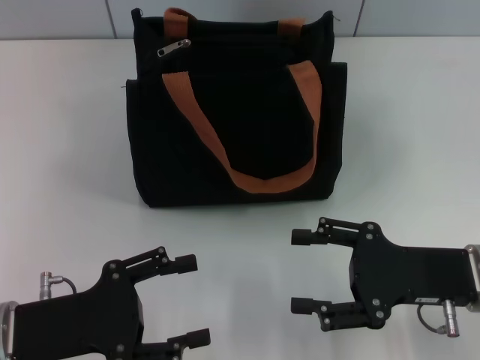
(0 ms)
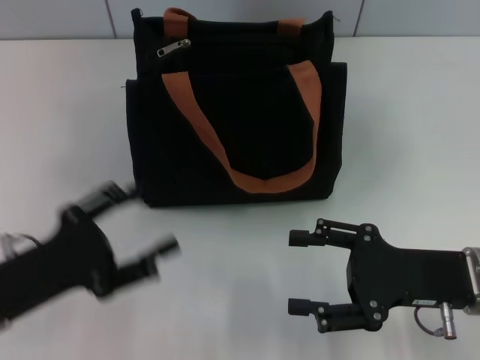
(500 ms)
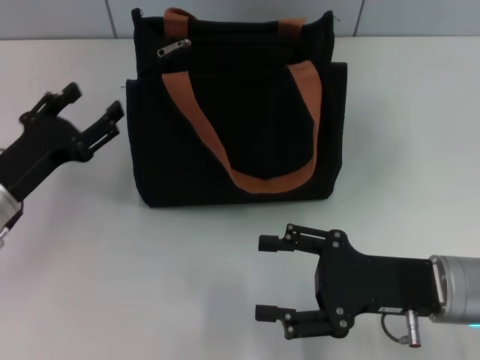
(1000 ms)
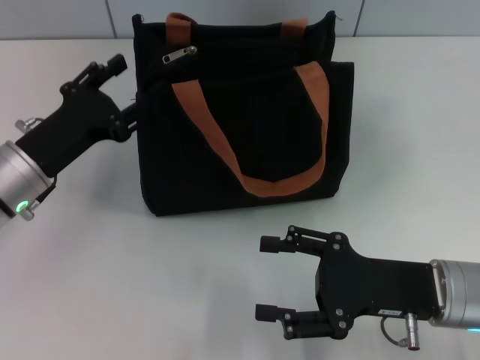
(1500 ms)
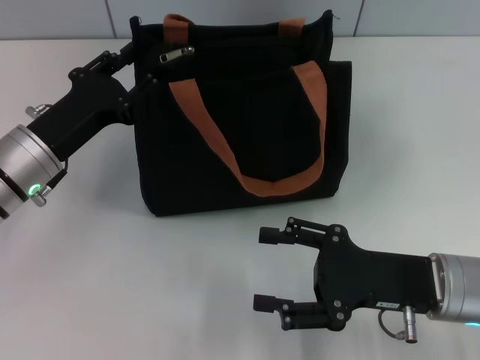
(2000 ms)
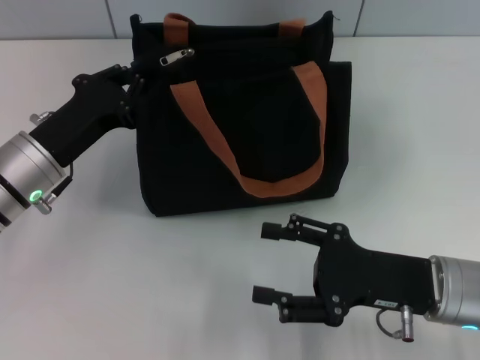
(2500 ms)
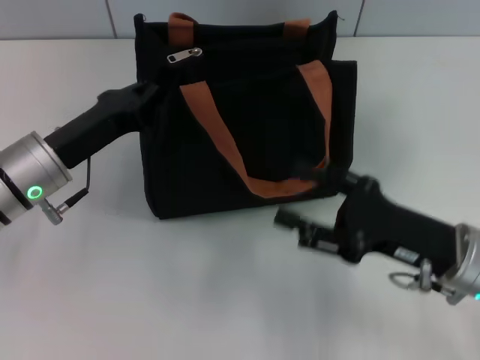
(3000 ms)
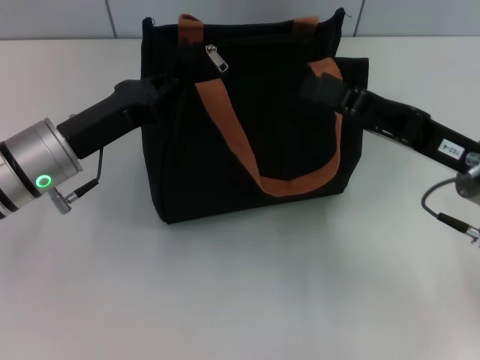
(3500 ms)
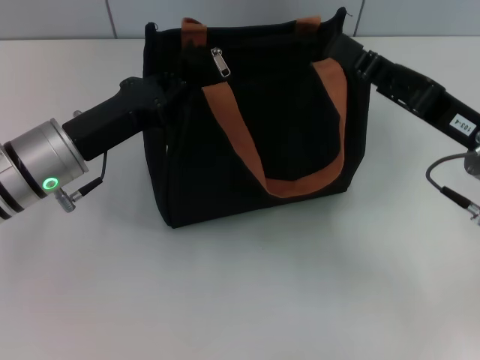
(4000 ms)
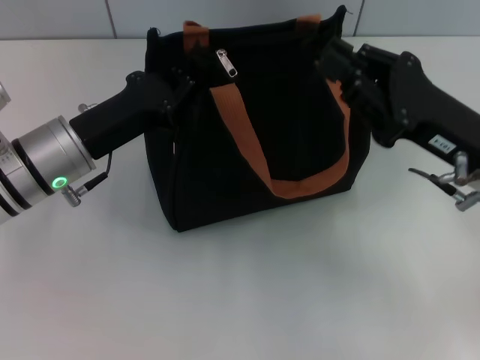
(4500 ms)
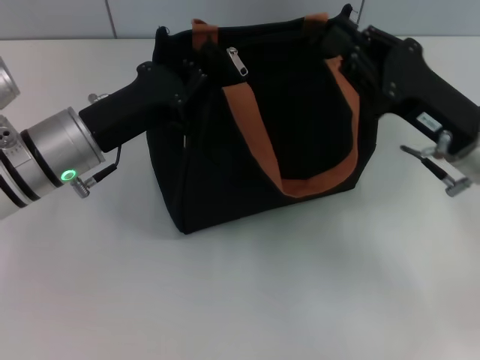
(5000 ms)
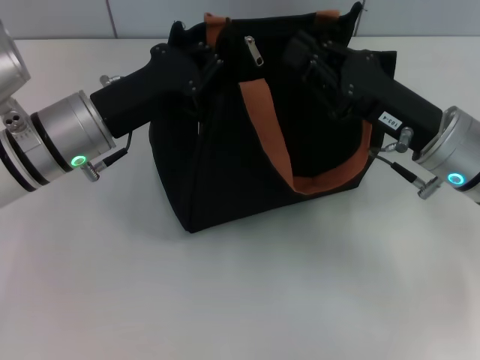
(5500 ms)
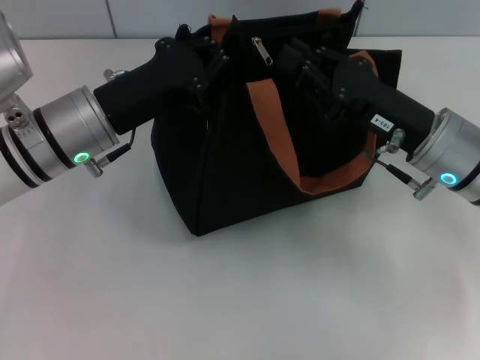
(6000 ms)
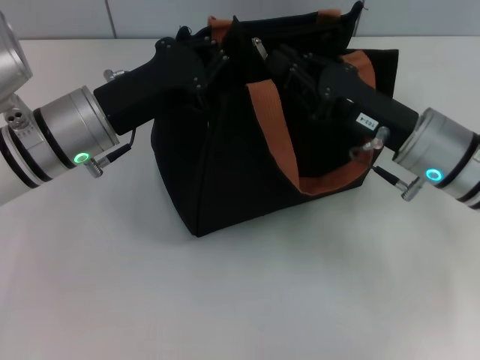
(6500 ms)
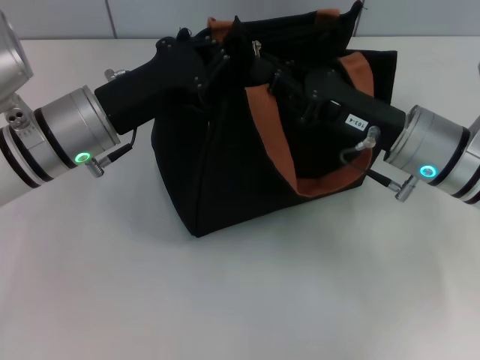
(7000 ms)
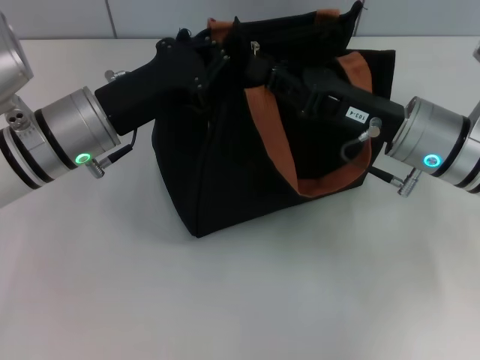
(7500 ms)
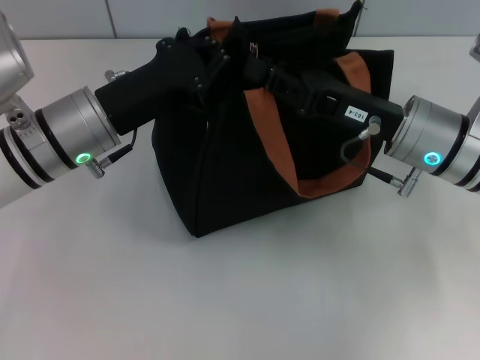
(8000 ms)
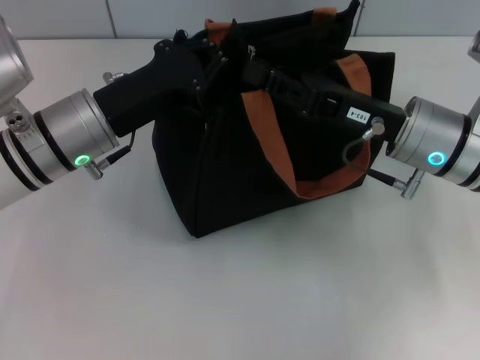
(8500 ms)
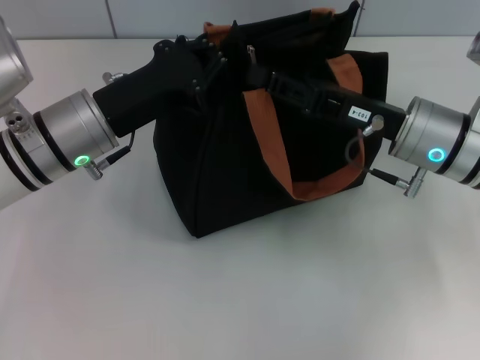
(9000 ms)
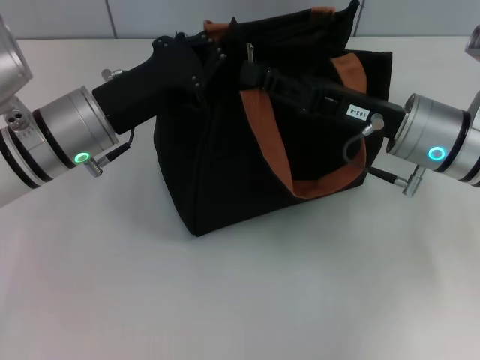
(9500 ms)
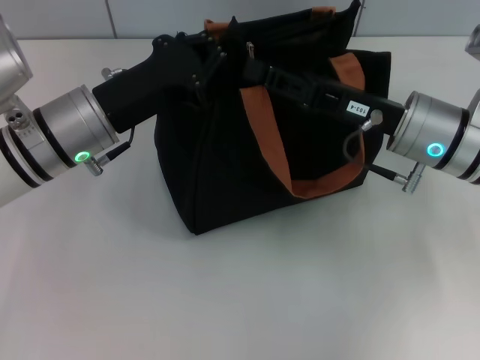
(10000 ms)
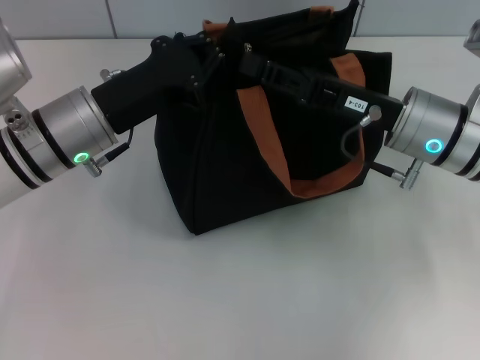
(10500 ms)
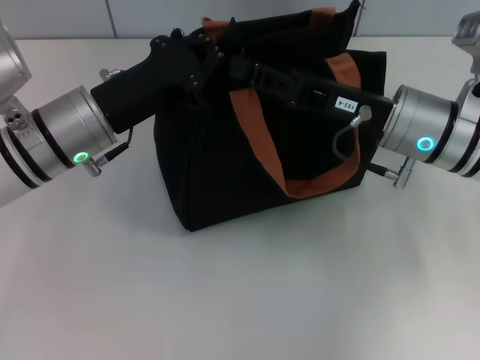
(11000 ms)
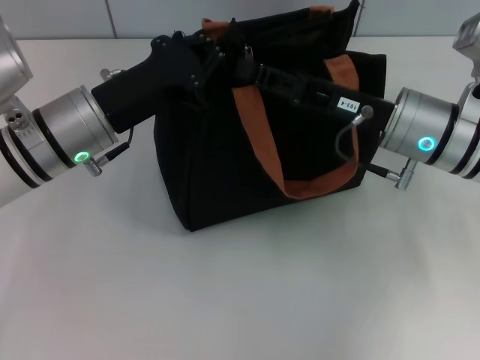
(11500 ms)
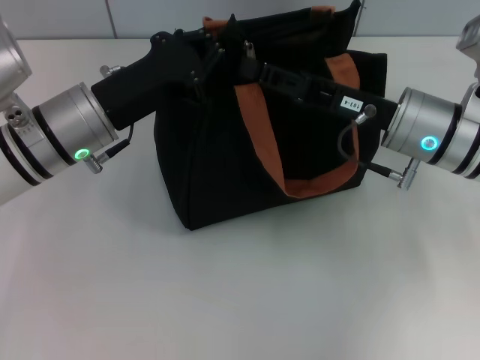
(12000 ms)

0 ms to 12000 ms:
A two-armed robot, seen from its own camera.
0 ms to 2000 ms: The left gripper is displaced forward by approximately 15 cm.
2000 ms to 4000 ms: The left gripper closes up, while the right gripper is displaced upward and forward by about 10 cm.
4000 ms to 6000 ms: The right gripper closes.
6000 ms to 8000 ms: The grippers move only a little.
8000 ms to 10000 ms: The grippers move only a little.
10000 ms to 12000 ms: The two grippers keep their place.

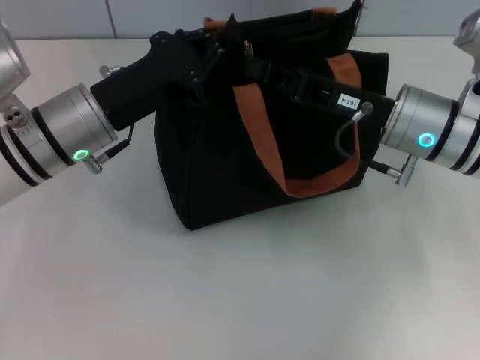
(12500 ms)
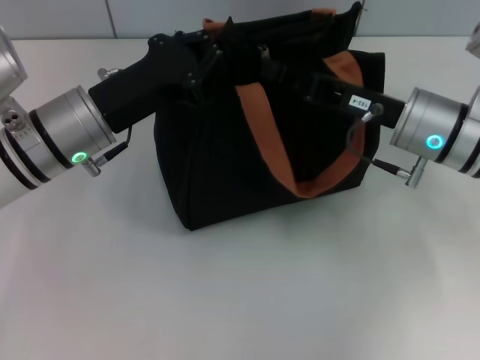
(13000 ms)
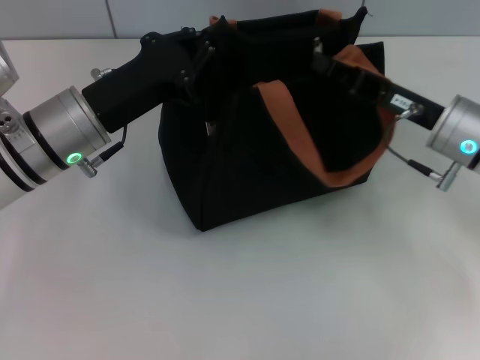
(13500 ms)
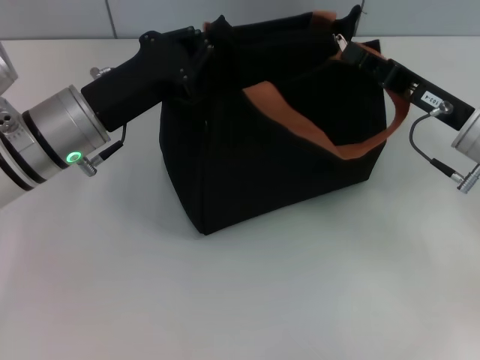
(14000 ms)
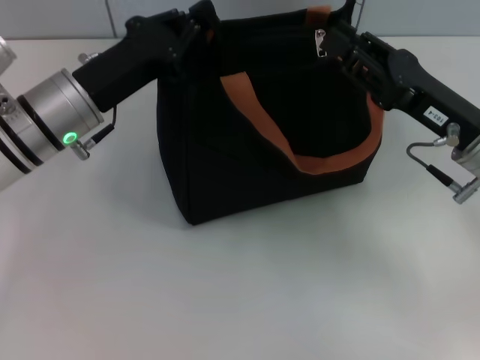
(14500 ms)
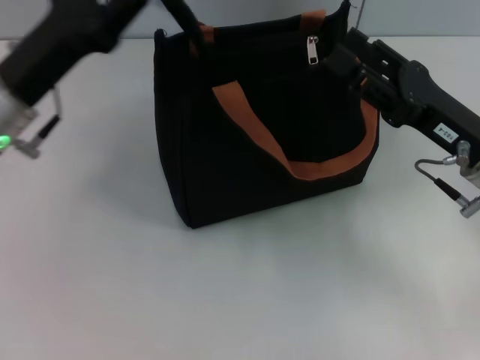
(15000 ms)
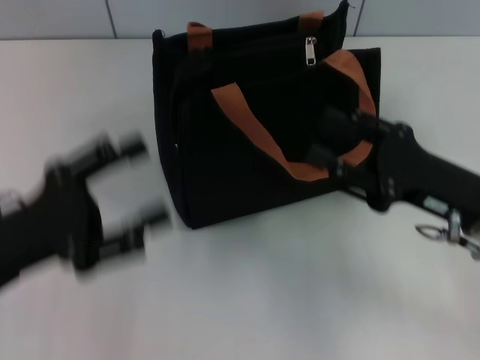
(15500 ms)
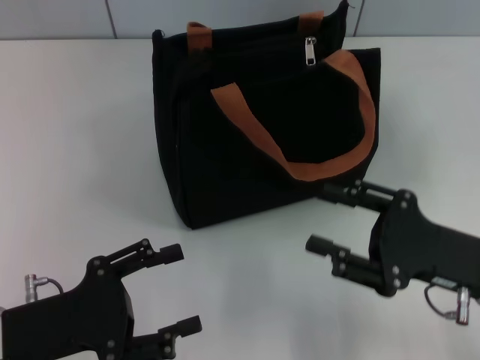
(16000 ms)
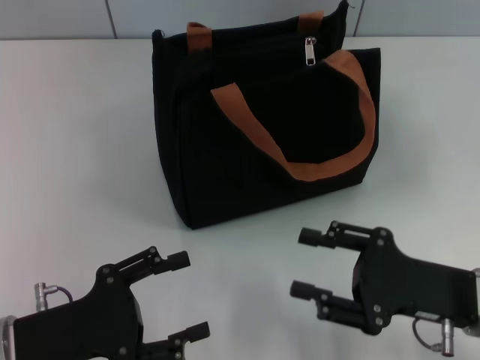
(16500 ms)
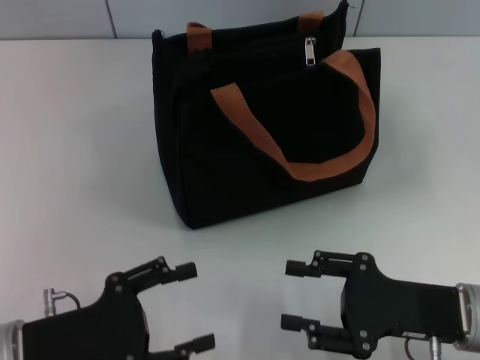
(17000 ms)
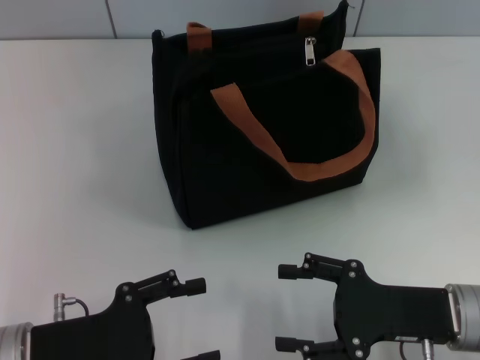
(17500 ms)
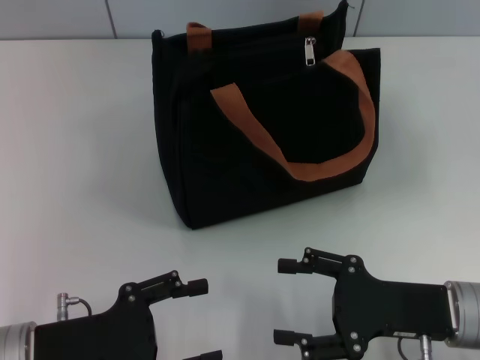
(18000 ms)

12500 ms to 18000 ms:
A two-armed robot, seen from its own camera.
Step, 14500 ms to 15000 ms: Grab the zipper with your left hand.
12500 ms to 14500 ms: The right gripper shifts about 5 cm to the right.
14500 ms to 16000 ms: The left gripper shifts approximately 20 cm backward, and opens; the right gripper heads backward, covering approximately 10 cm, and opens its fingers.

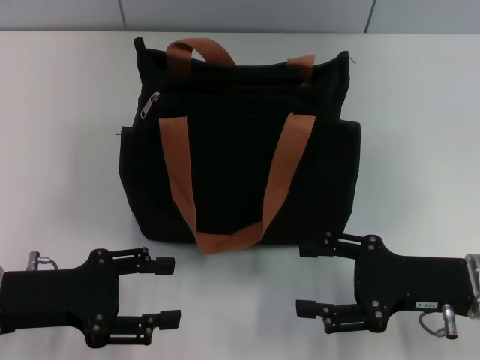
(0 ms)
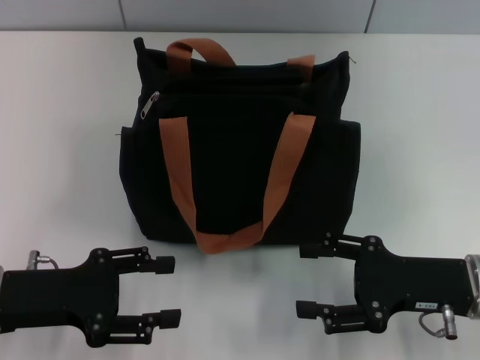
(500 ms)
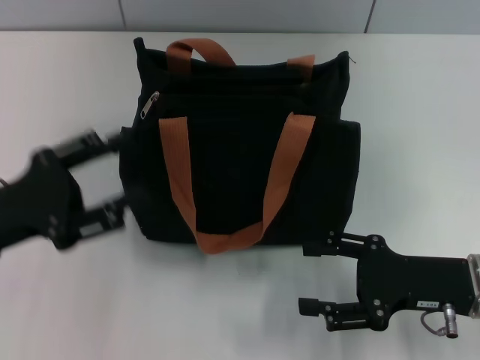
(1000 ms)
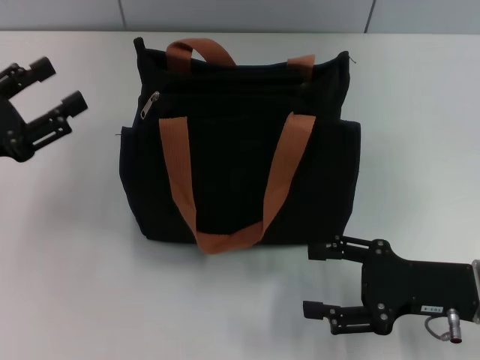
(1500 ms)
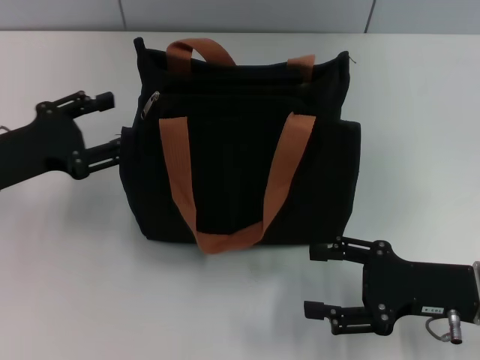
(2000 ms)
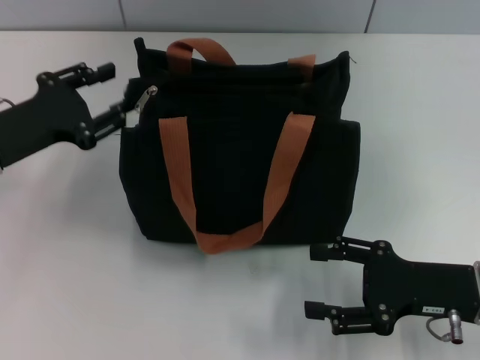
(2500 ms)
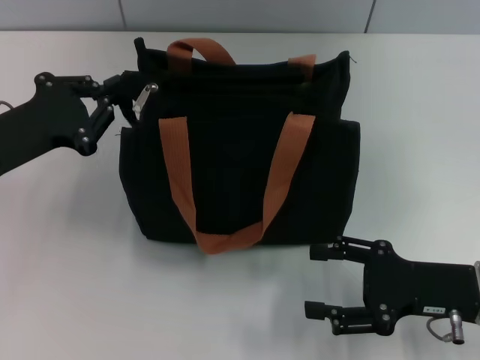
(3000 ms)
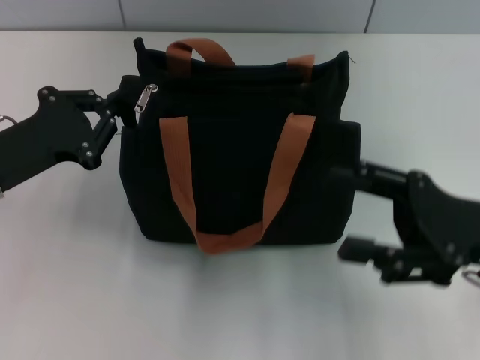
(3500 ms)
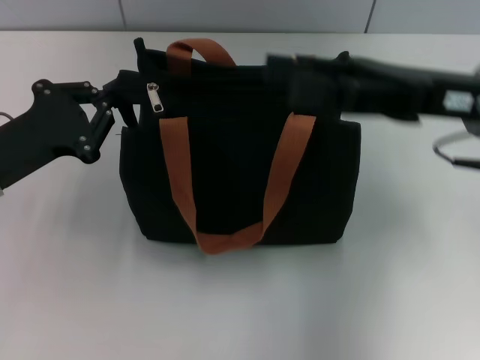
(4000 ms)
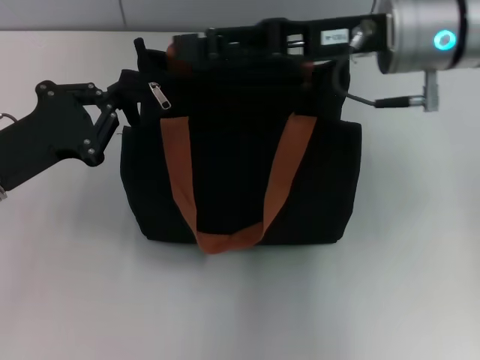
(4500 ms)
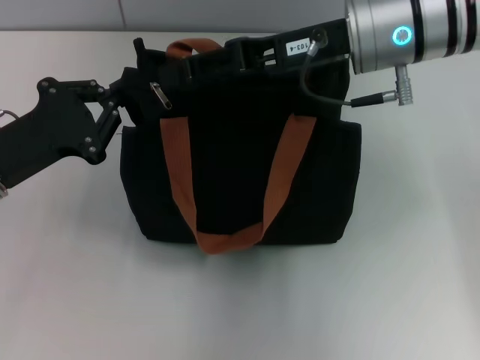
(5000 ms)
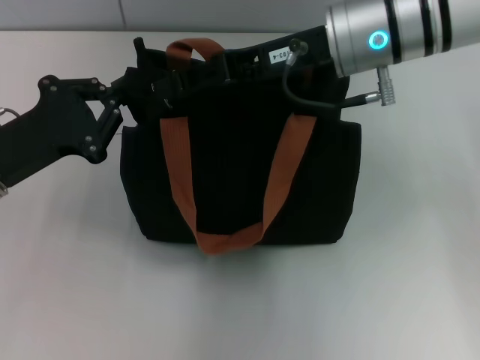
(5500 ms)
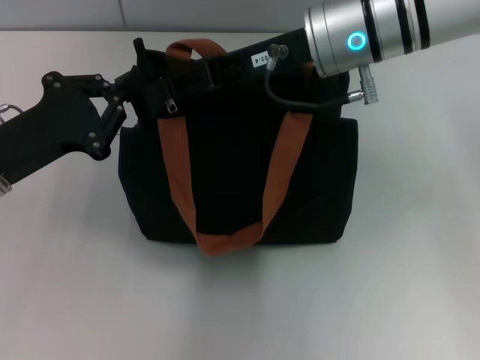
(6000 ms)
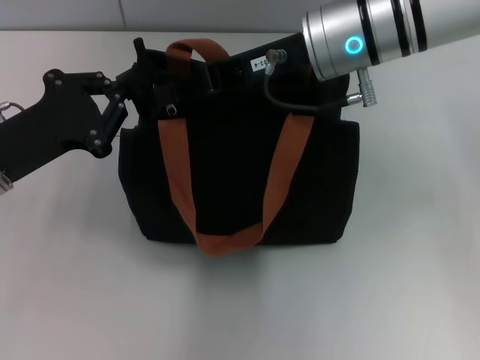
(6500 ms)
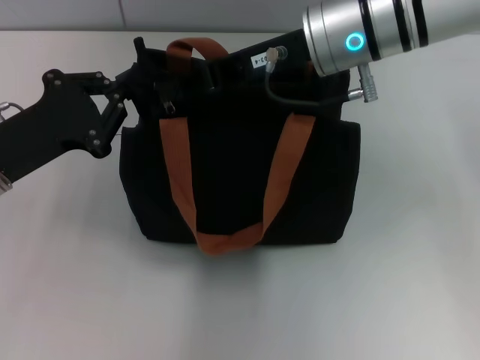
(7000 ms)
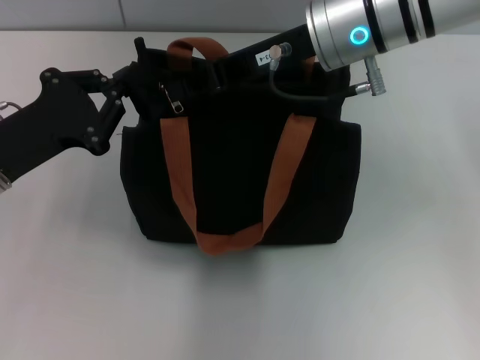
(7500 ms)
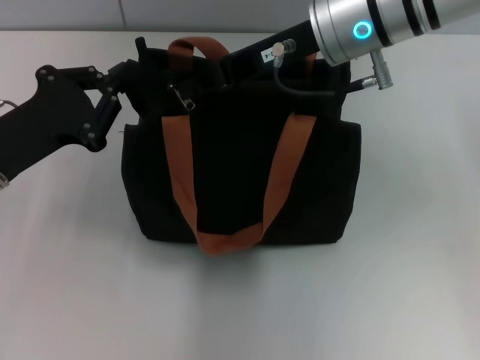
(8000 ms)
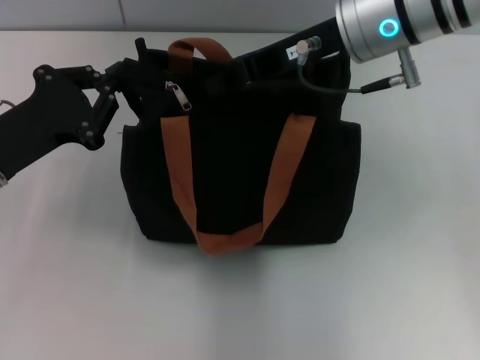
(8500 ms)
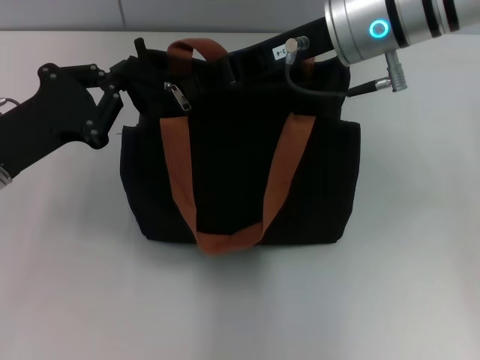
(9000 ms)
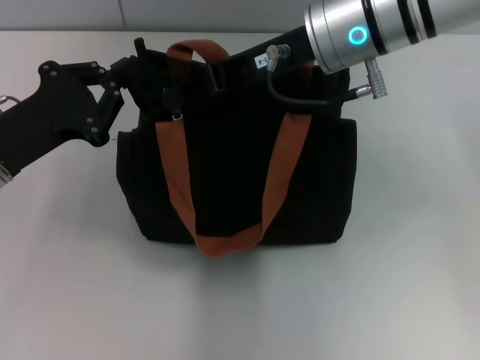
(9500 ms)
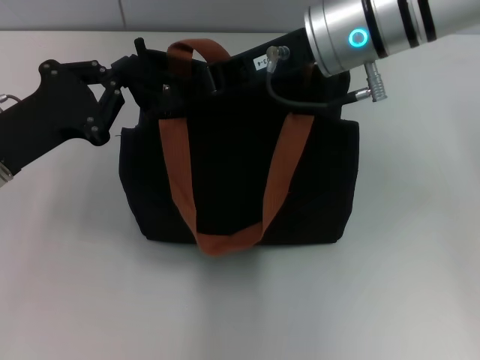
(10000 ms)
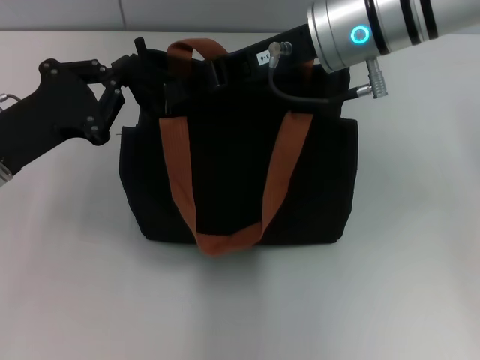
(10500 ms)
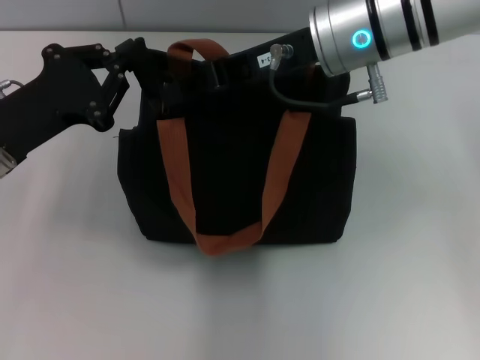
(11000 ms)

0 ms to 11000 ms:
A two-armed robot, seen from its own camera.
0 ms to 2000 ms: The left gripper goes some 10 cm forward.
2000 ms to 3500 ms: The left gripper closes. The right gripper travels upward by some 5 cm.
3500 ms to 5500 ms: The right gripper moves forward, to the left and upward, about 20 cm, and closes its fingers.
5500 ms to 7500 ms: The right gripper closes.
7500 ms to 11000 ms: The grippers make only small movements.
